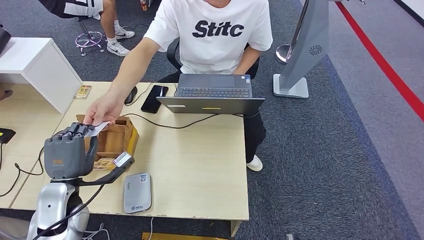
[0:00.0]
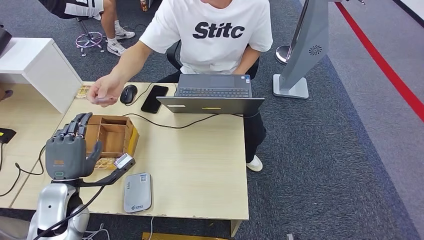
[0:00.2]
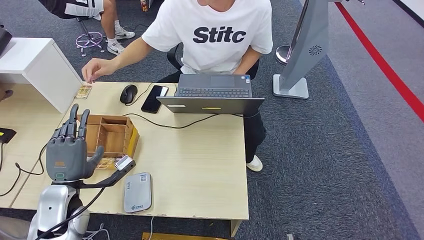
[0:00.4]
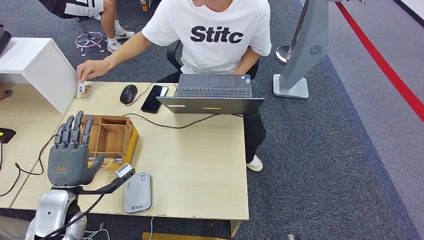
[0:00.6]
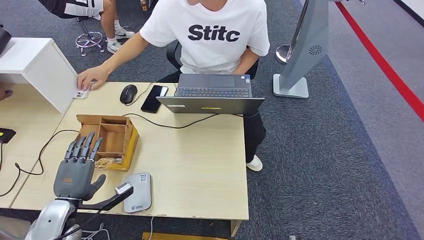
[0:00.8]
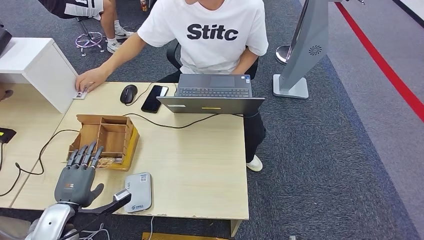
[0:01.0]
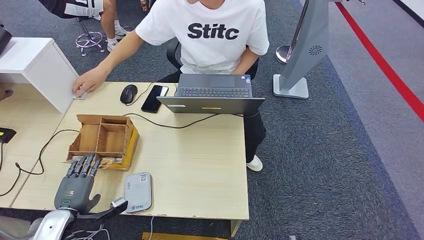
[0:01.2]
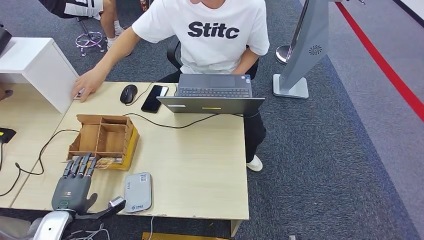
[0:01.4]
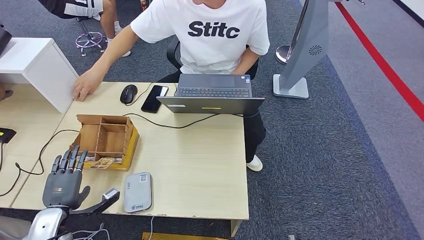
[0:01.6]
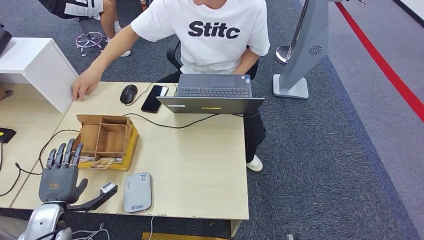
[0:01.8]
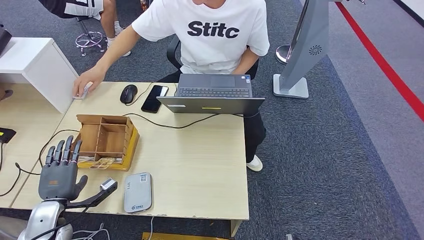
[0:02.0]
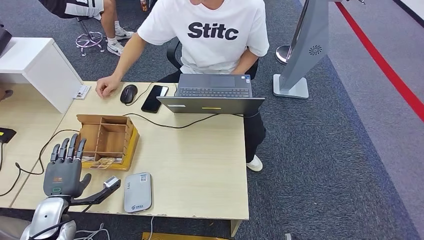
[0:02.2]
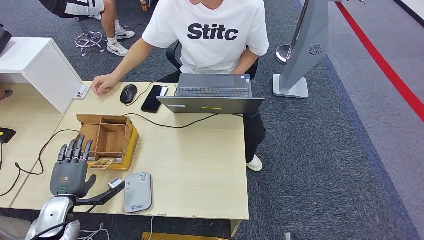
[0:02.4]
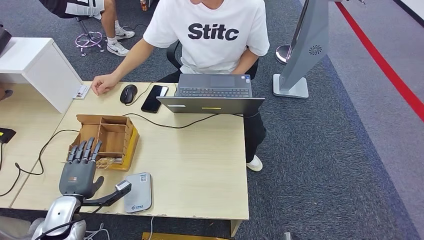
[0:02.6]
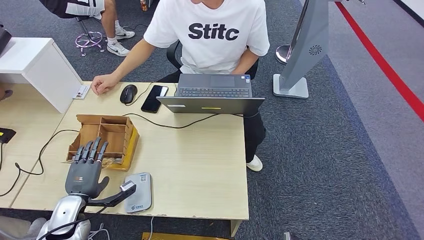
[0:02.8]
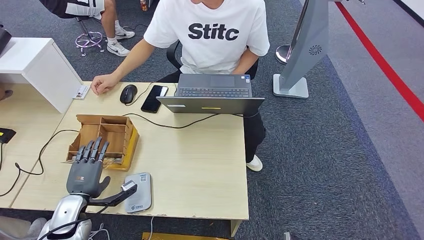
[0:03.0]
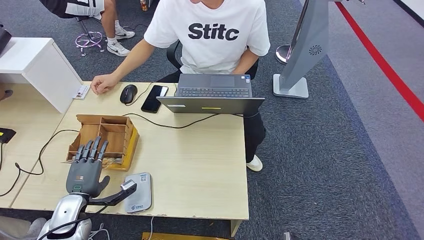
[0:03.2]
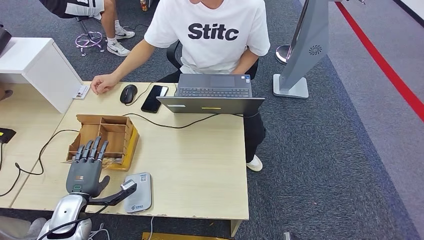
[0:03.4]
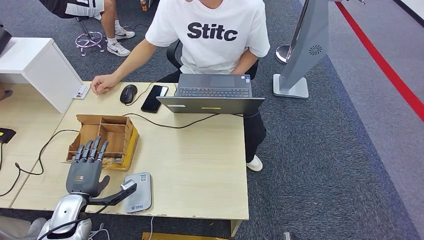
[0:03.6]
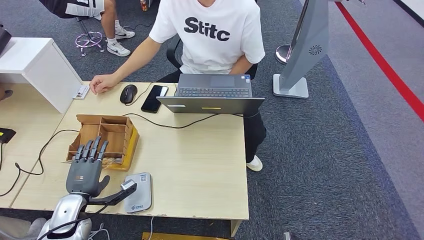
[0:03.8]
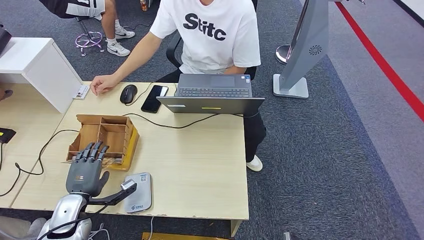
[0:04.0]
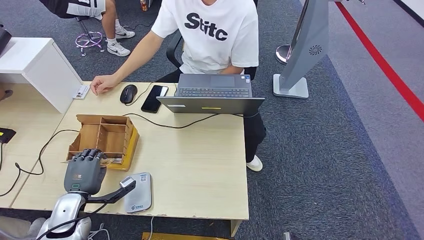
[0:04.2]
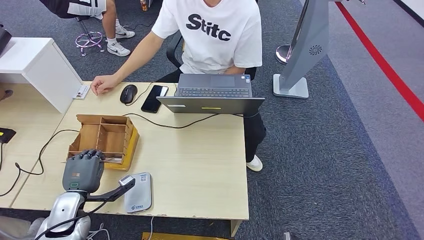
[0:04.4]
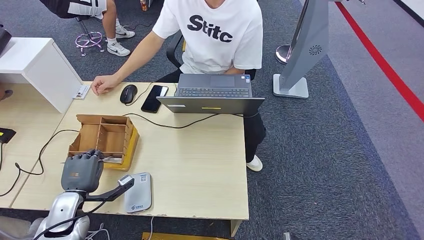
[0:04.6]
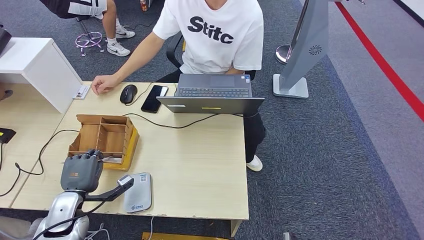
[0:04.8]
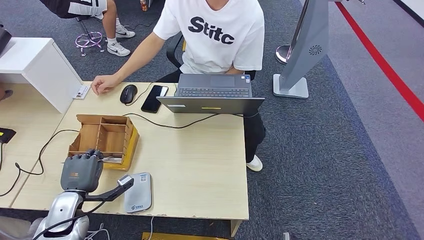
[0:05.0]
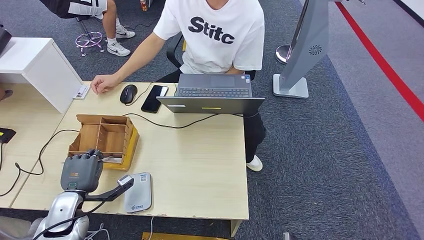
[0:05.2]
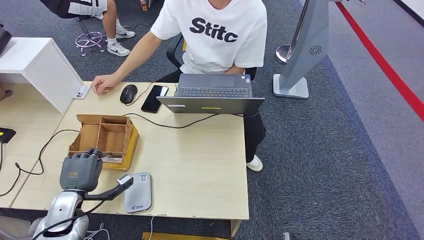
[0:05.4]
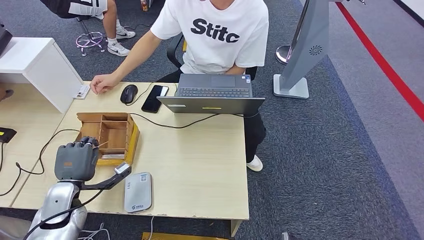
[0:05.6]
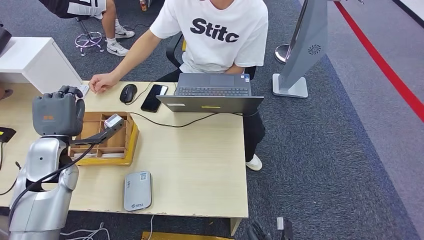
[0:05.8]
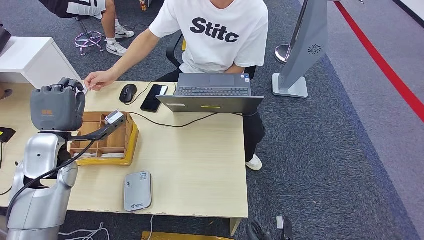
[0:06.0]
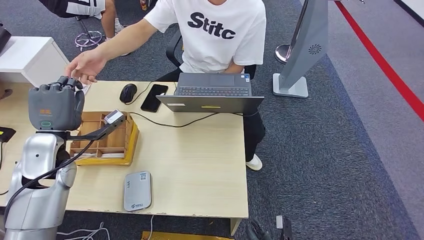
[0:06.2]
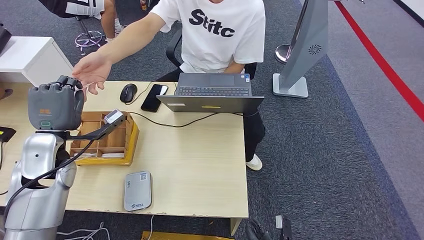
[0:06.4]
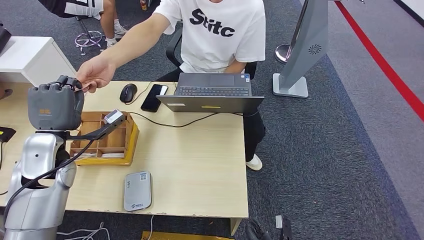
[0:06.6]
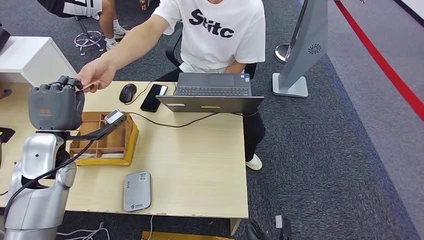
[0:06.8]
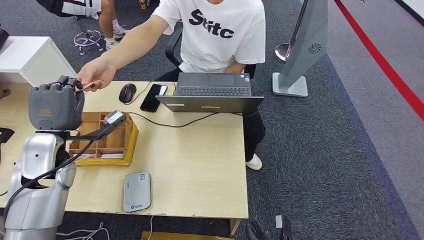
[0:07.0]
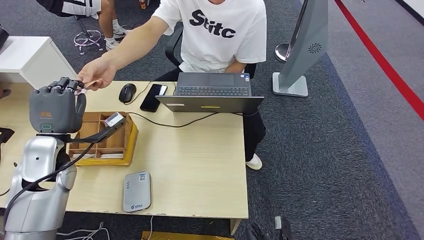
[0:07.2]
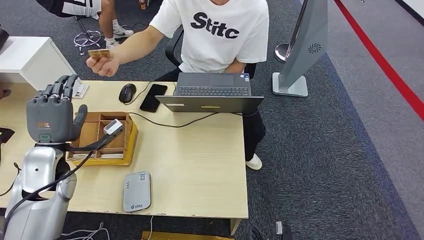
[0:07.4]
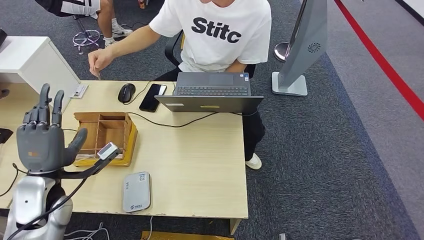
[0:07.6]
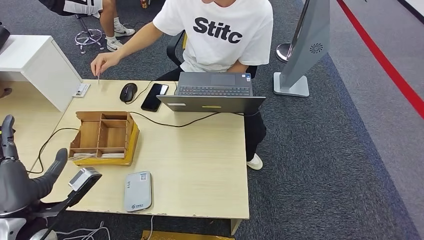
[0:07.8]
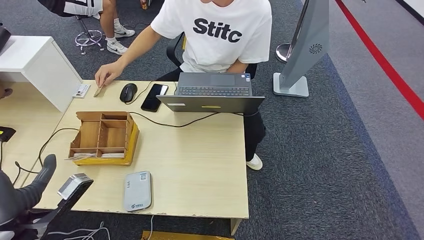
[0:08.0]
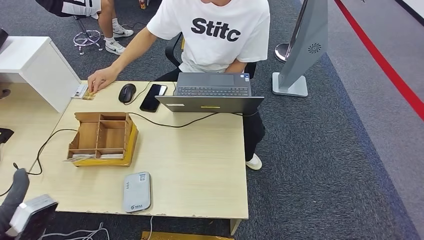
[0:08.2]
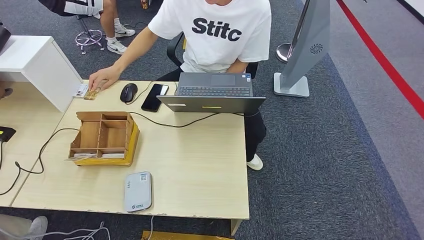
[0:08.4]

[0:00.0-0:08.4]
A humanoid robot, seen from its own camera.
Step, 0:04.0 to 0:05.8: Pick up the room key from the key card box.
Step, 0:06.2 to 0:08.4: Hand the room key to the person.
0:00.0 to 0:01.4: The left hand travels downward, to the left and backward by roughly 15 cm.
0:01.4 to 0:02.8: There are only small adjustments of the hands.
0:02.8 to 0:04.2: The two hands keep their place.
0:04.2 to 0:05.6: The hands make only small movements.
0:07.0 to 0:08.4: The left hand moves backward, roughly 25 cm. The right hand is displaced backward by about 10 cm.

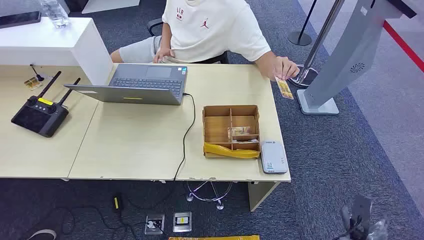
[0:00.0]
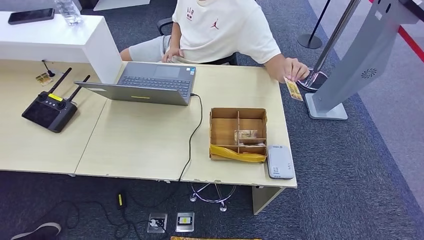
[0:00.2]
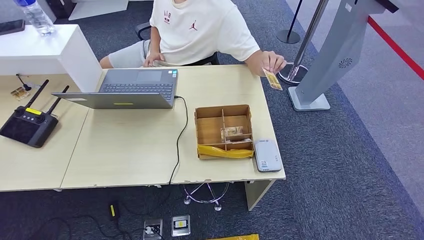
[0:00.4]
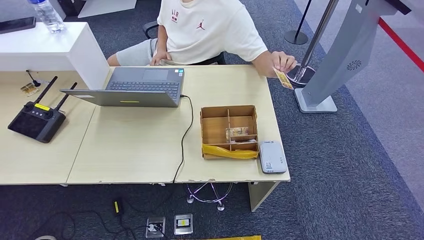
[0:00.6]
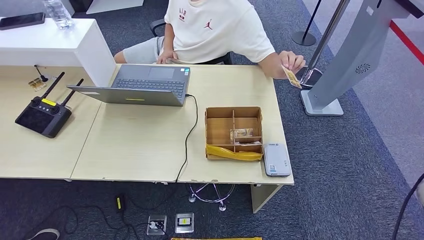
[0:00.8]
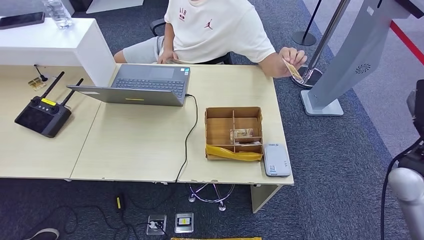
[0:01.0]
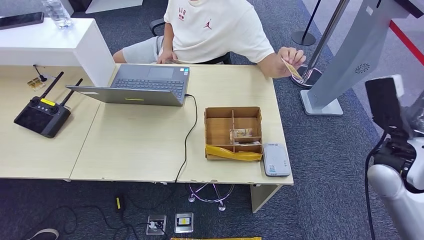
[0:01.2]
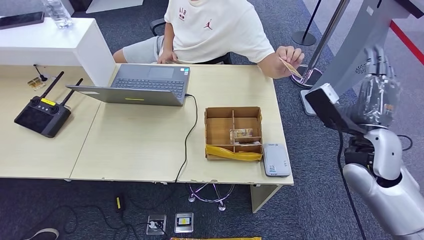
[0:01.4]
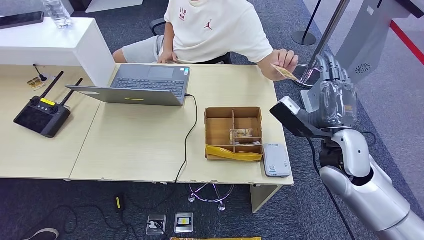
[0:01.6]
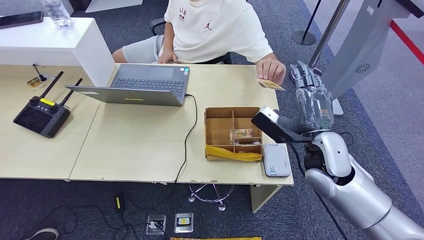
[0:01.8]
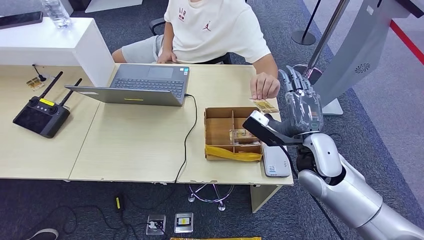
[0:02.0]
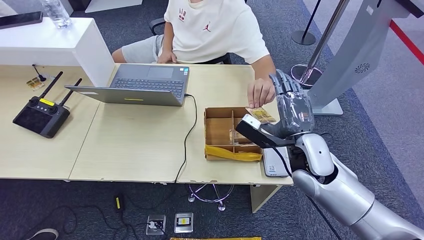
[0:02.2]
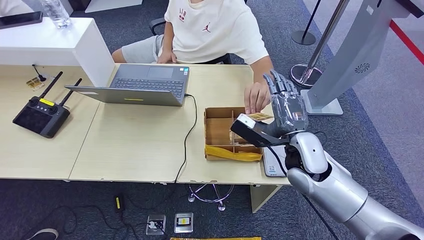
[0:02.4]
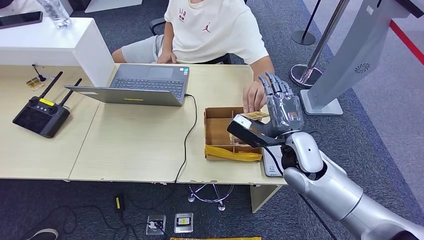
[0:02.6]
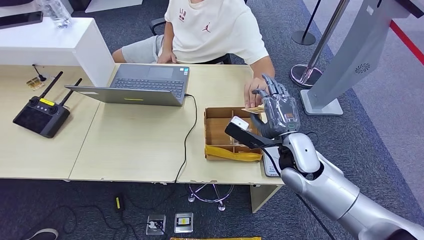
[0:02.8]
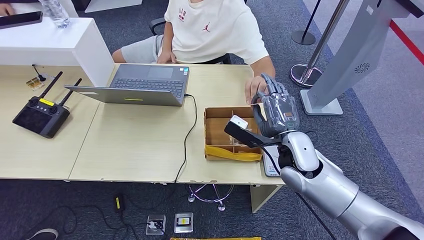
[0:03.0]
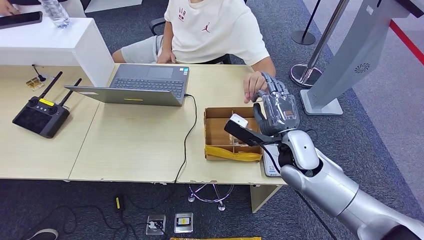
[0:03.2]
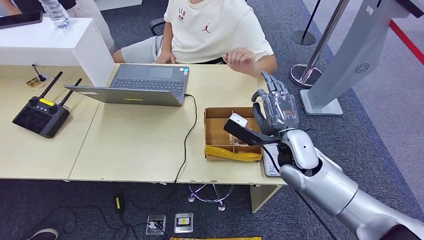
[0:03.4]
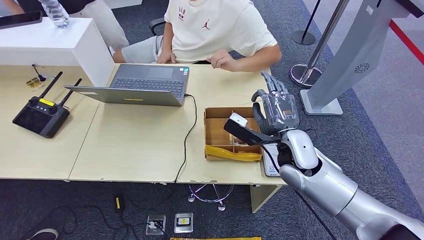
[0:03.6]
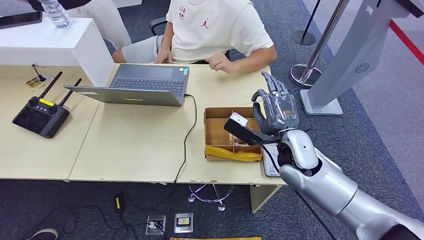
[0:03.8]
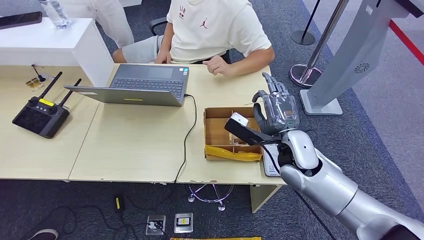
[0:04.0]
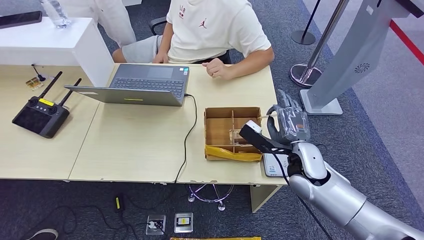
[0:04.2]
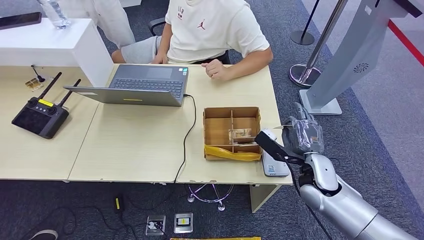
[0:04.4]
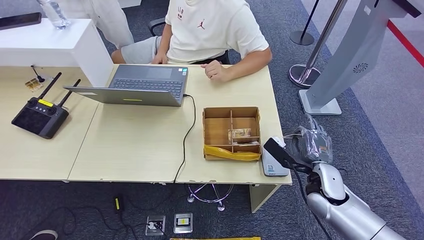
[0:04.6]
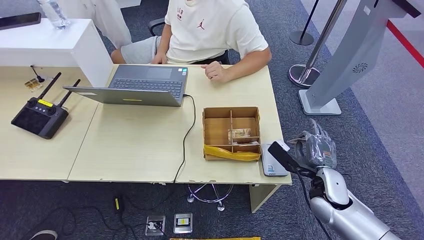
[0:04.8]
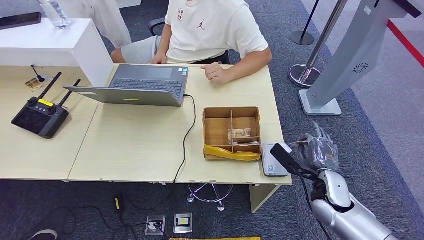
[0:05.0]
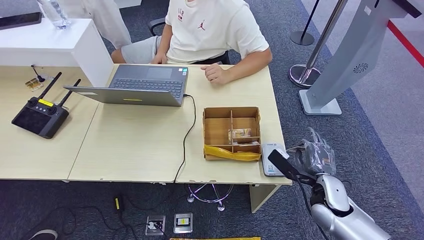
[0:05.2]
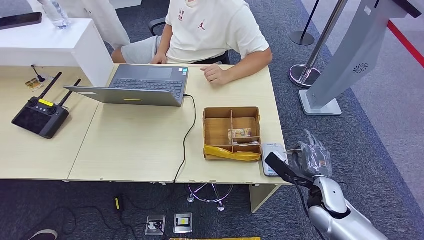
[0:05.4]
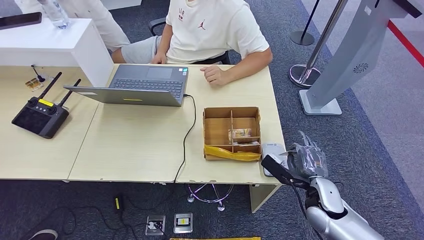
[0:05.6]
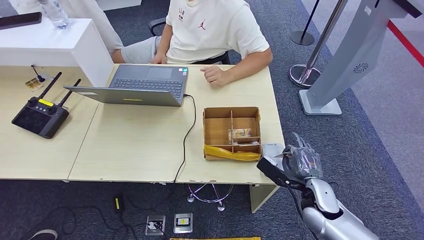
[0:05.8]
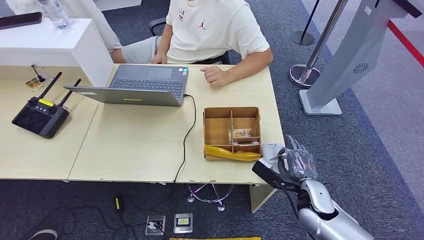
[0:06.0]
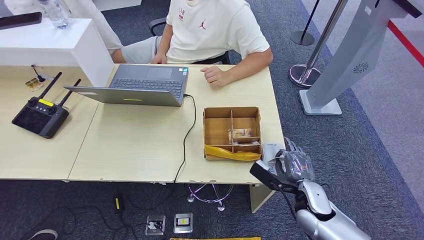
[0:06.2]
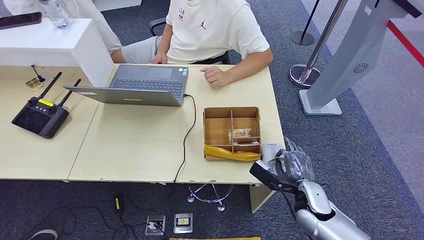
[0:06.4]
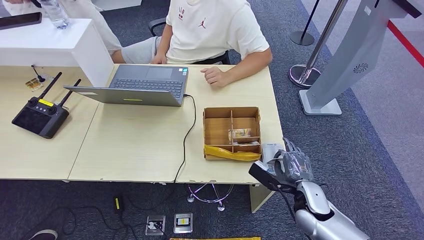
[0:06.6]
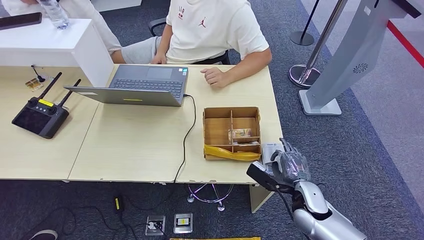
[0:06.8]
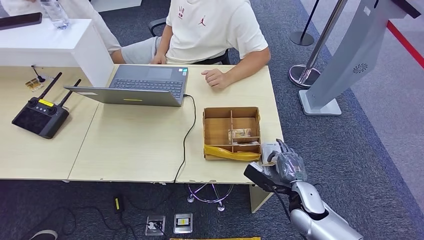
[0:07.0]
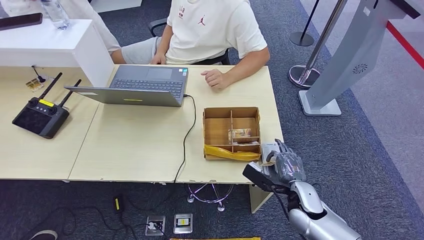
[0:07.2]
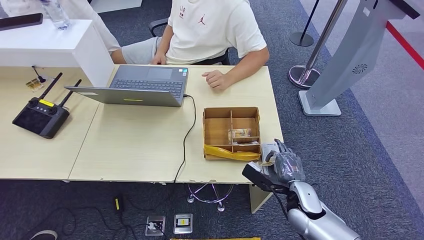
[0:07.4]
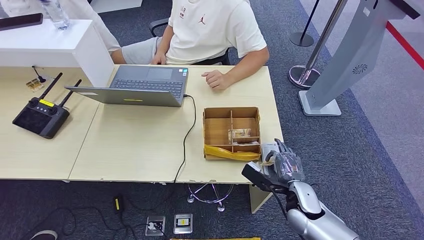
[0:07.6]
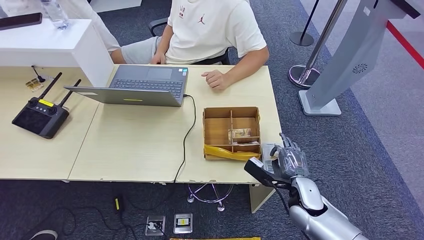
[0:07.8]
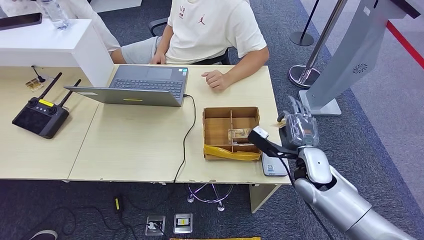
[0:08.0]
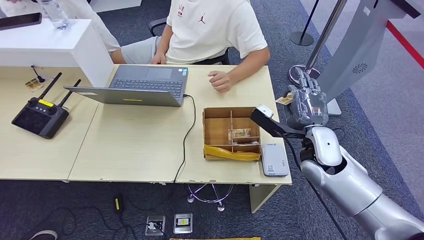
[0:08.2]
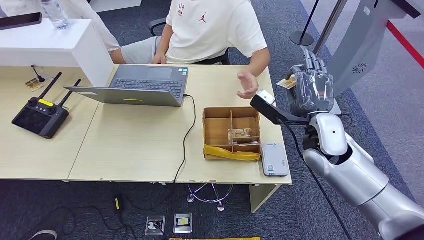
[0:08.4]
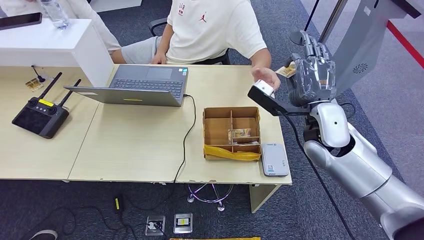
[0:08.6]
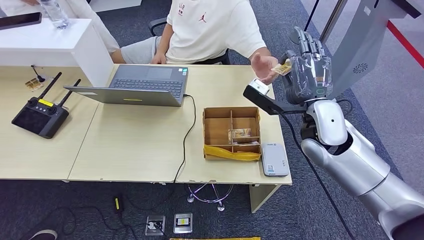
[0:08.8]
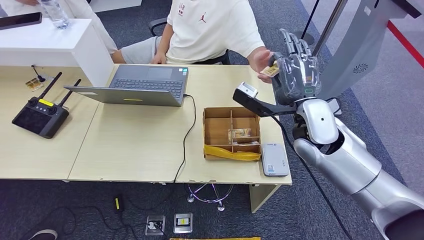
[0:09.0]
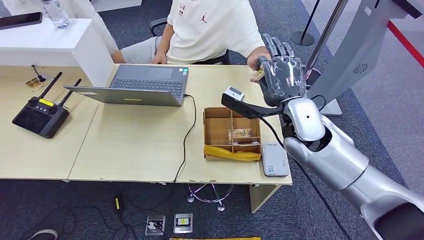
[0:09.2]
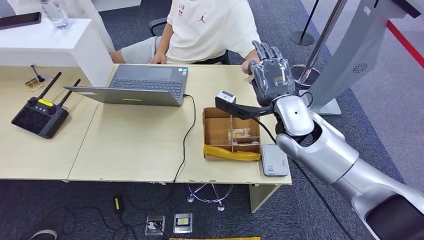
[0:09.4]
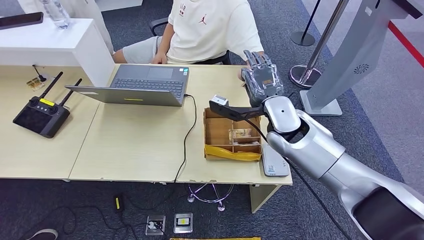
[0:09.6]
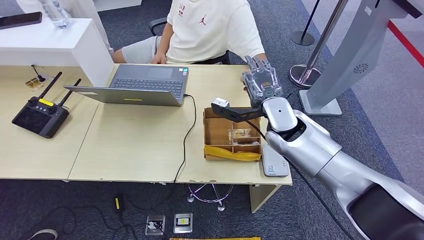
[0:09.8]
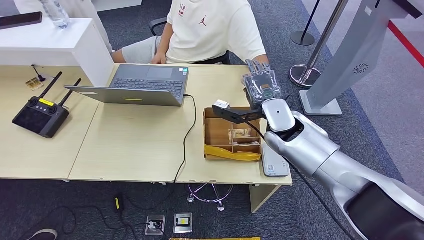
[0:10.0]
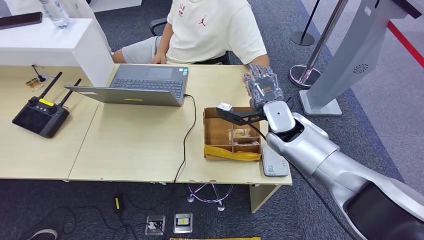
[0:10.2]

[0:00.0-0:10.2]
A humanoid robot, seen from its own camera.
Step, 0:00.0 to 0:03.8: Take the ID card from the person's hand.
Step, 0:04.0 to 0:07.6: Place the ID card on the card reader.
Step, 0:07.8 to 0:10.2: Hand the ID card to the person.
0:03.0 to 0:04.4: The right hand is displaced to the right and downward by approximately 10 cm.
0:04.4 to 0:05.8: The right hand goes roughly 5 cm downward.
0:05.8 to 0:07.2: The hands make only small movements.
0:07.2 to 0:08.8: The right hand heads upward and forward, covering roughly 25 cm.
0:08.8 to 0:10.2: The right hand travels downward, to the left and forward by about 10 cm.
